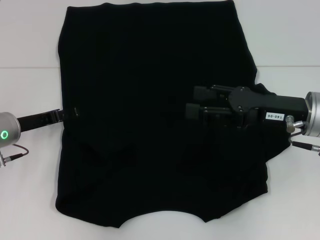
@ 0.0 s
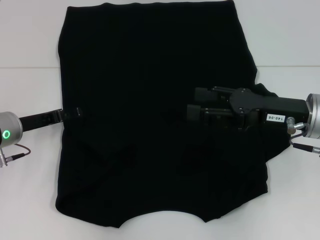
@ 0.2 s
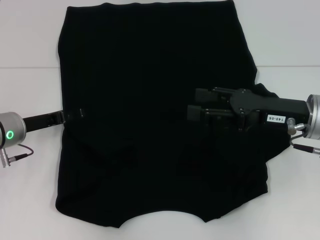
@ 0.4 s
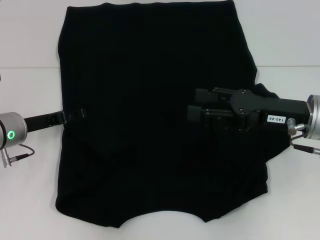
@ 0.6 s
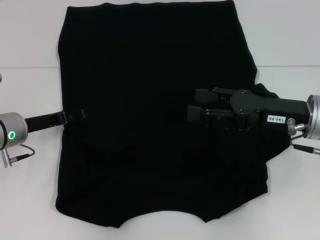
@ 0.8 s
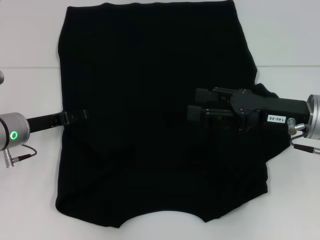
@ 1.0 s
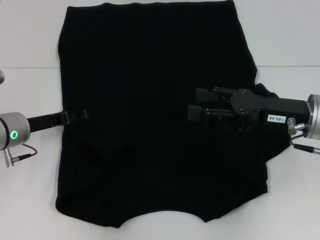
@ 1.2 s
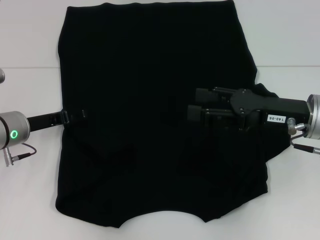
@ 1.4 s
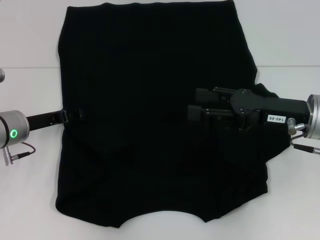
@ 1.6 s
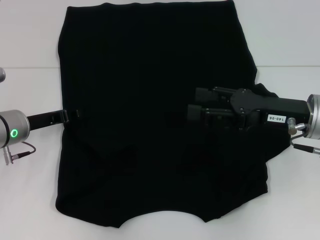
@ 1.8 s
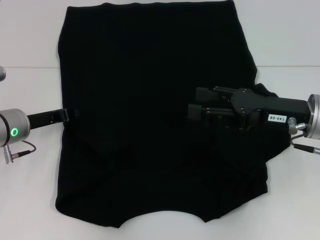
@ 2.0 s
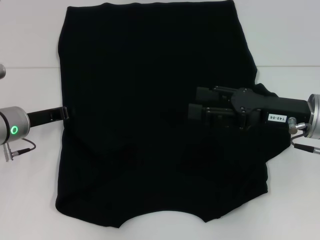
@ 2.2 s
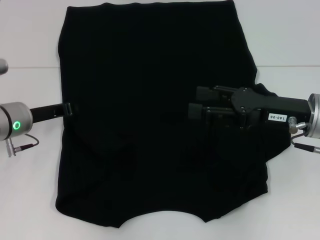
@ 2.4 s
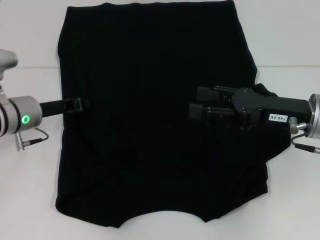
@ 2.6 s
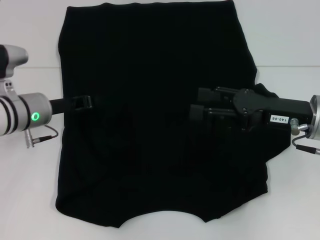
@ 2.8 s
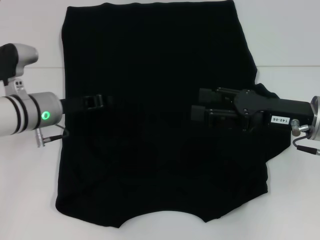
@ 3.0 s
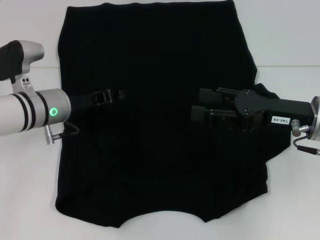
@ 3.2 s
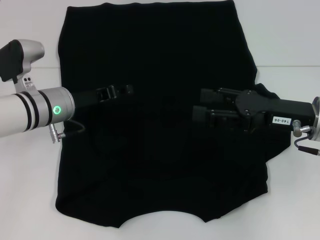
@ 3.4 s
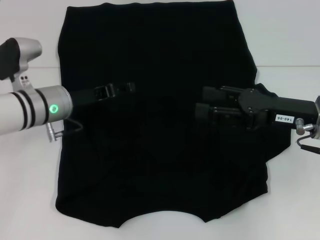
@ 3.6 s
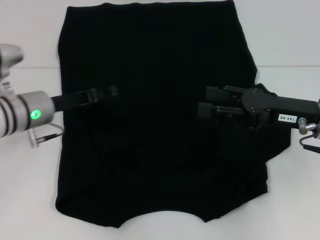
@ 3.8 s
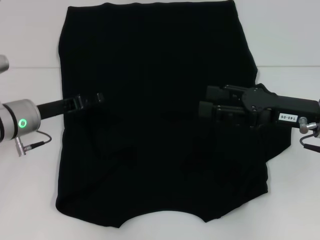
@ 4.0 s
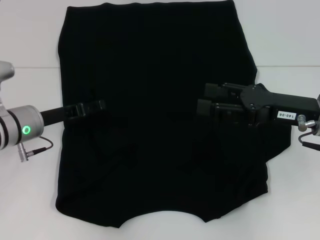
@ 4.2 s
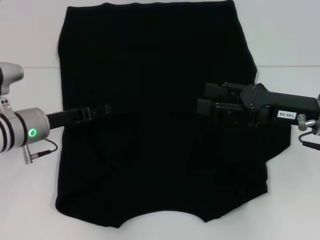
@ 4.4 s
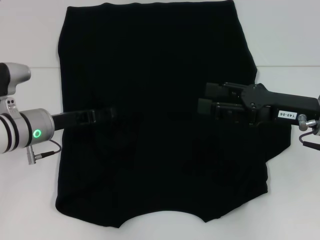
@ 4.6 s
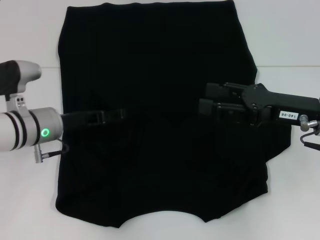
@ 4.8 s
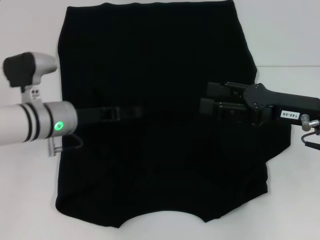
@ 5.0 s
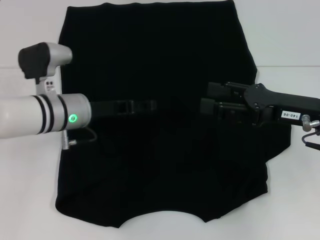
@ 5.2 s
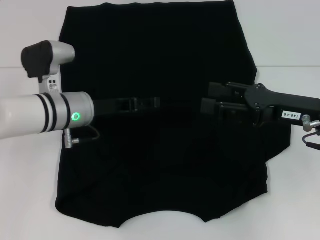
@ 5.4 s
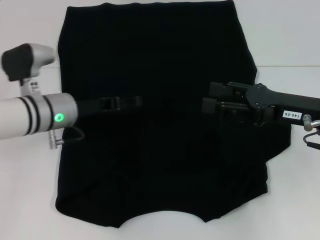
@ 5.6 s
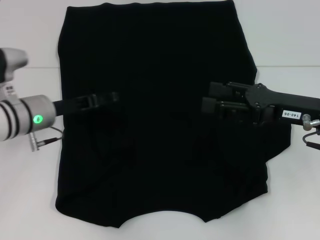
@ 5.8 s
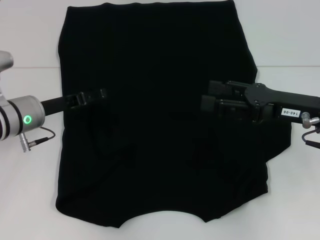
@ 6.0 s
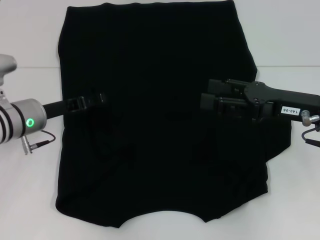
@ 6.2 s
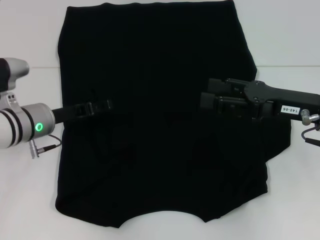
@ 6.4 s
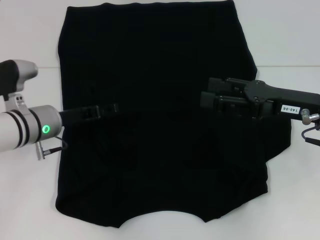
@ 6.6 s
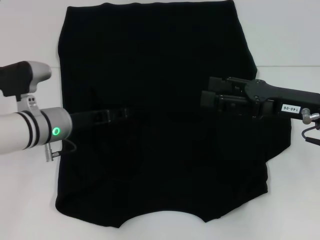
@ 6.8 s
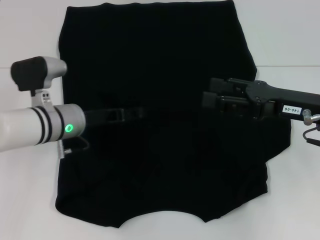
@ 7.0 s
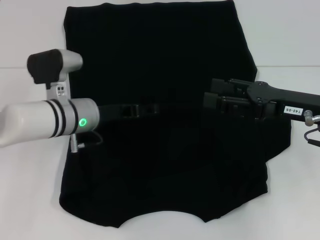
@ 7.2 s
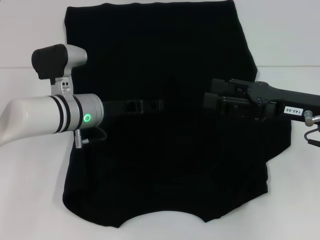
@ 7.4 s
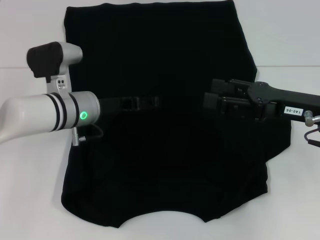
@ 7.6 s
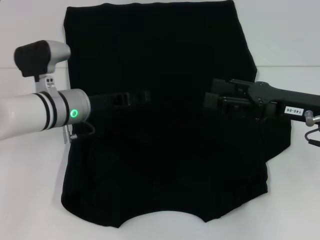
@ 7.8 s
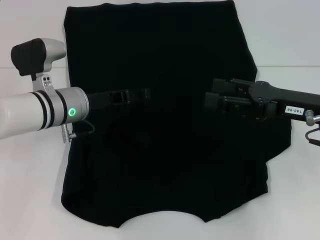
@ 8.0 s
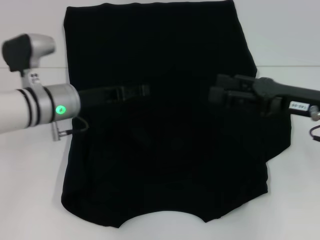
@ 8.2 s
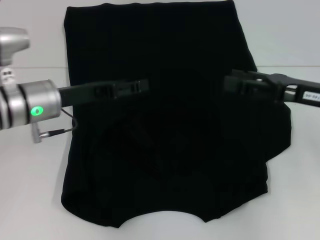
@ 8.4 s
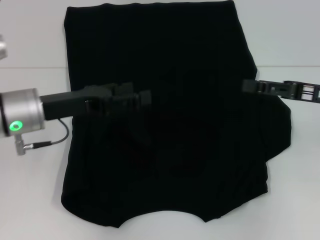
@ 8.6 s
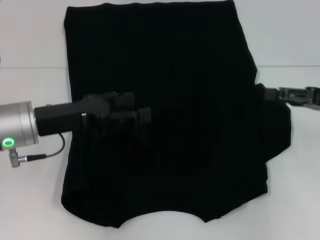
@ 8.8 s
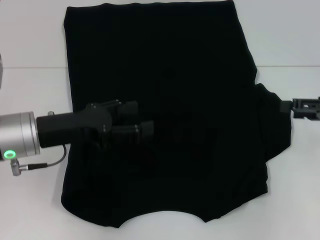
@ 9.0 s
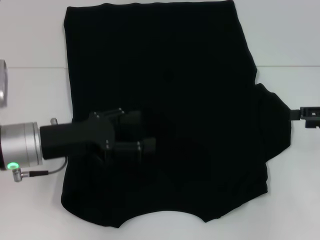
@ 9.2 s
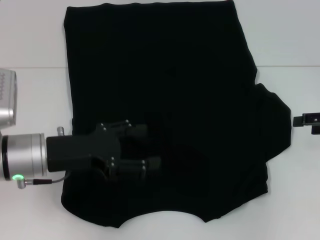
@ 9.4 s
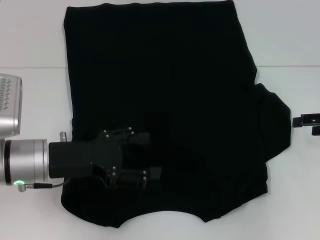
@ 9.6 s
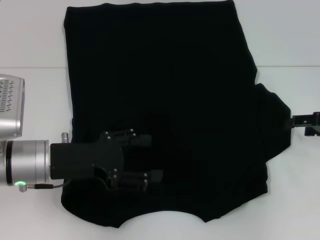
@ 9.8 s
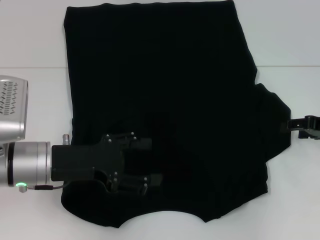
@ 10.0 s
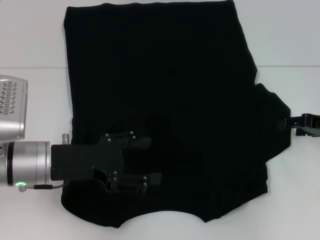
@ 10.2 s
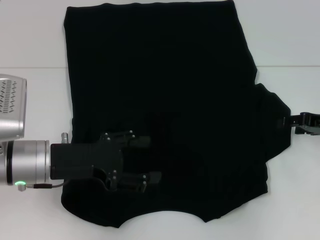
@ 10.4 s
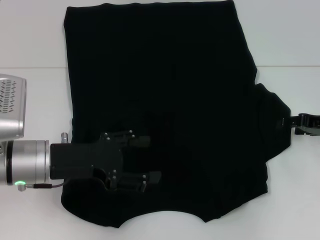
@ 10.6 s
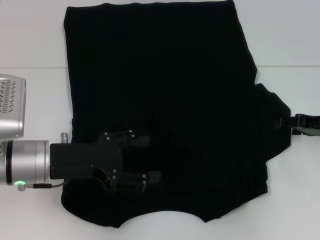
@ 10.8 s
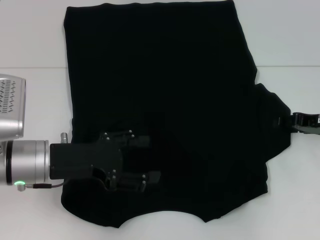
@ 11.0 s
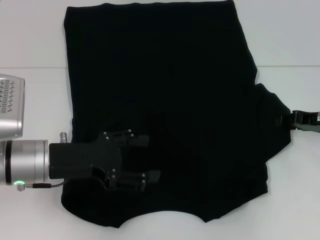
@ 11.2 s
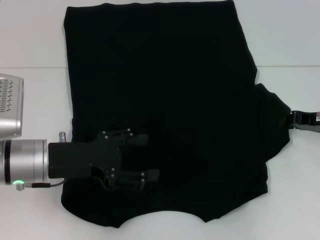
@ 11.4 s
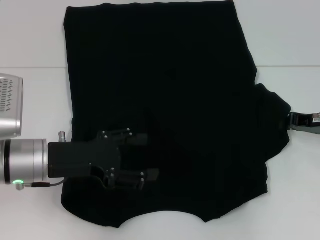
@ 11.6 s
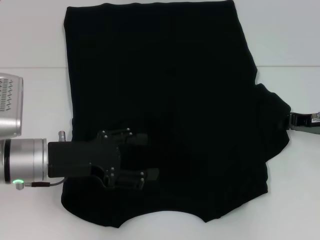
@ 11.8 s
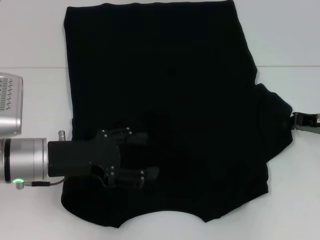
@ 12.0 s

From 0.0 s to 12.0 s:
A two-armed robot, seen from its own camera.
From 0.0 s to 1.6 s: The two grippers keep their place.
From 1.6 s to 3.0 s: The left gripper shifts by some 5 cm, and closes up.
From 3.0 s to 4.4 s: The left gripper opens its fingers.
From 6.0 s to 7.6 s: The left gripper travels to the right by some 10 cm.
From 7.6 s to 9.0 s: The left gripper shifts about 10 cm backward and to the left; the right gripper travels to the right by approximately 10 cm.
From 9.0 s to 10.4 s: The right gripper changes place by approximately 5 cm.
From 10.4 s to 12.0 s: The right gripper closes.

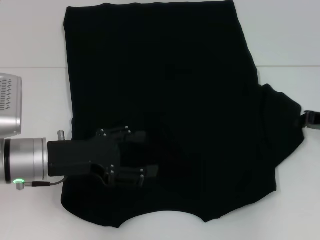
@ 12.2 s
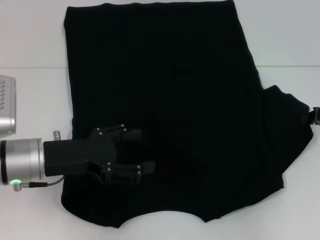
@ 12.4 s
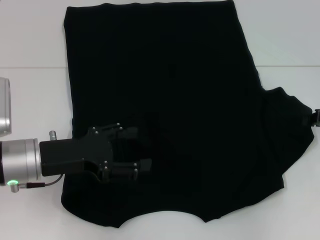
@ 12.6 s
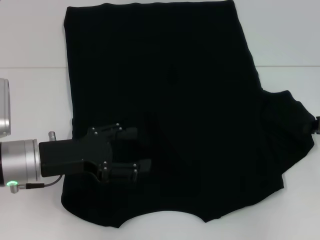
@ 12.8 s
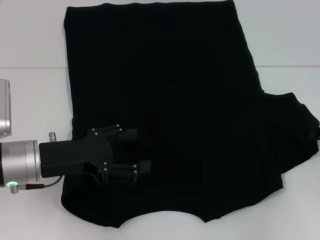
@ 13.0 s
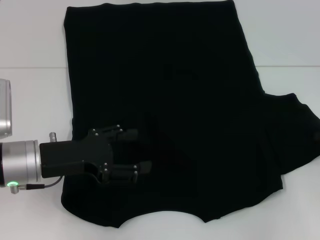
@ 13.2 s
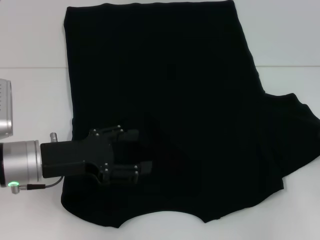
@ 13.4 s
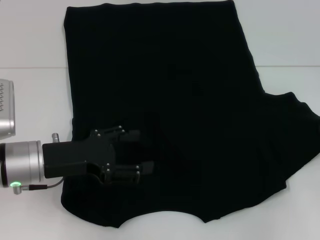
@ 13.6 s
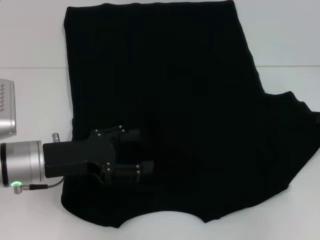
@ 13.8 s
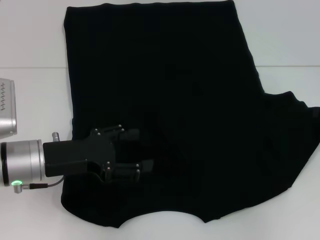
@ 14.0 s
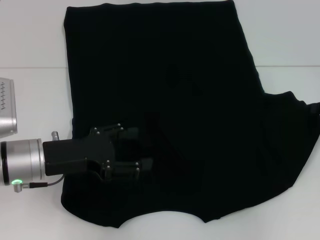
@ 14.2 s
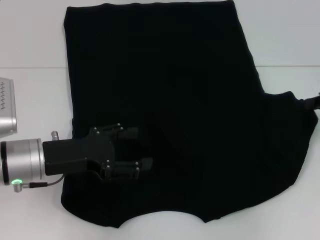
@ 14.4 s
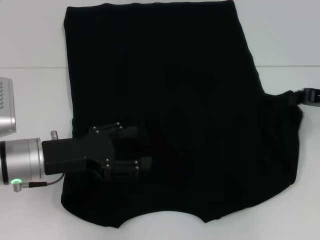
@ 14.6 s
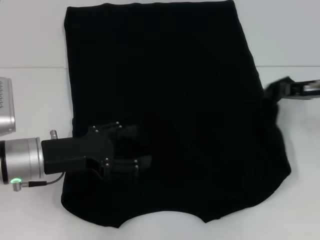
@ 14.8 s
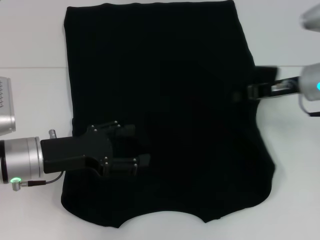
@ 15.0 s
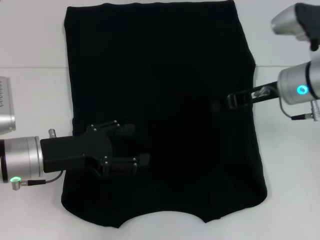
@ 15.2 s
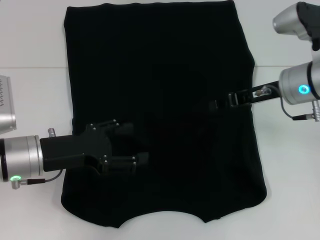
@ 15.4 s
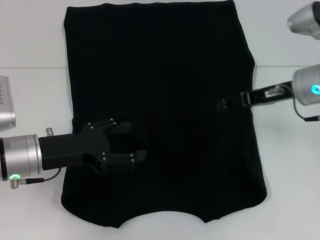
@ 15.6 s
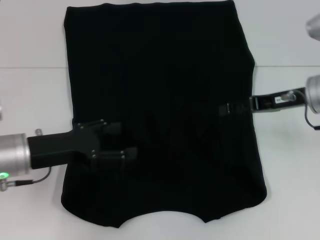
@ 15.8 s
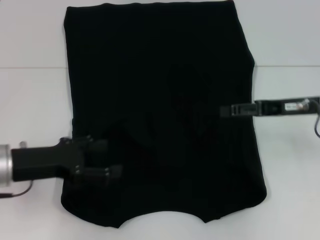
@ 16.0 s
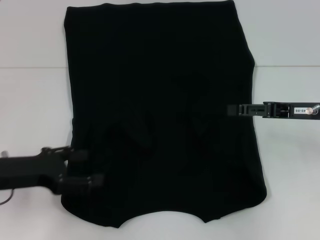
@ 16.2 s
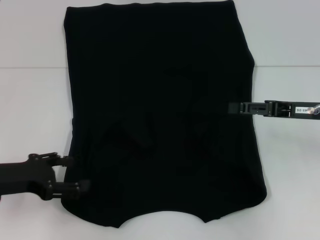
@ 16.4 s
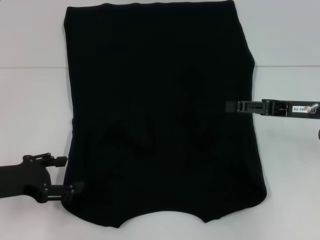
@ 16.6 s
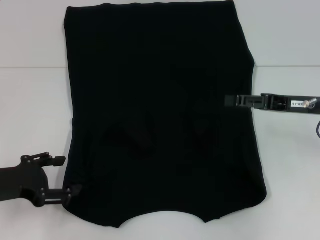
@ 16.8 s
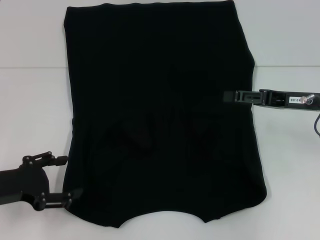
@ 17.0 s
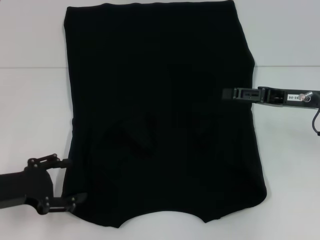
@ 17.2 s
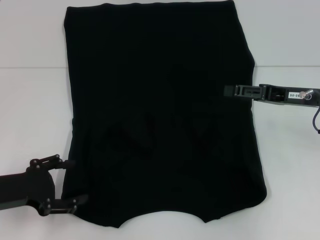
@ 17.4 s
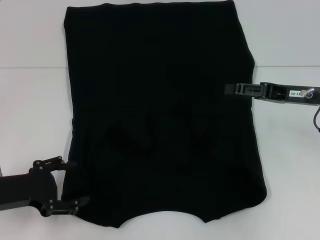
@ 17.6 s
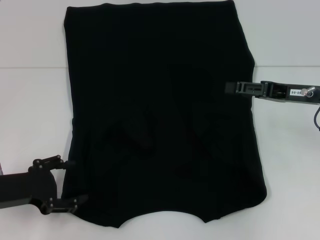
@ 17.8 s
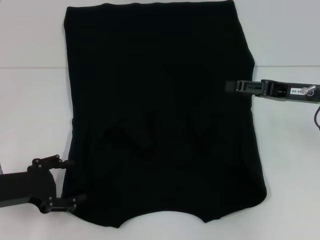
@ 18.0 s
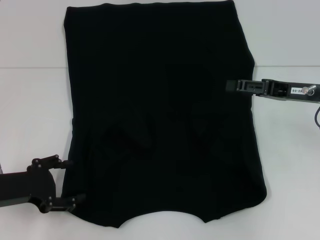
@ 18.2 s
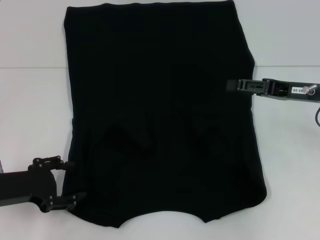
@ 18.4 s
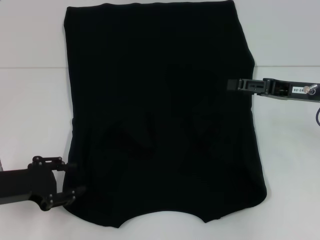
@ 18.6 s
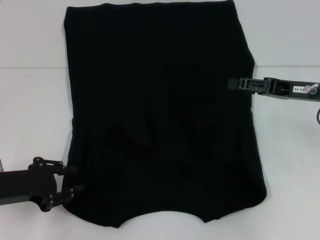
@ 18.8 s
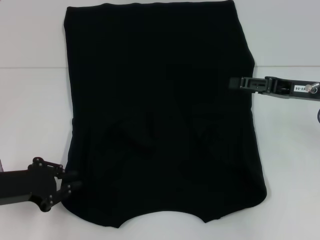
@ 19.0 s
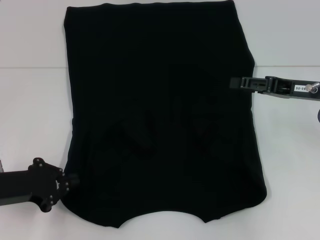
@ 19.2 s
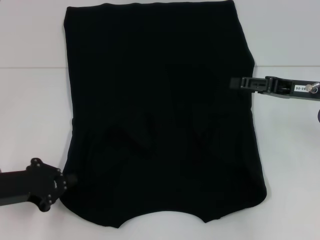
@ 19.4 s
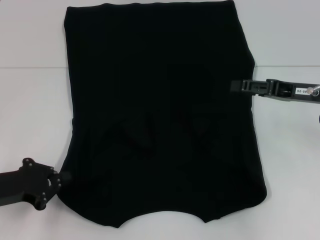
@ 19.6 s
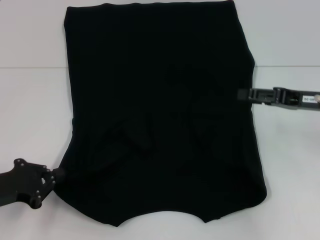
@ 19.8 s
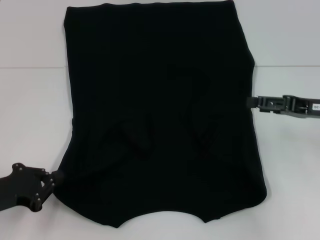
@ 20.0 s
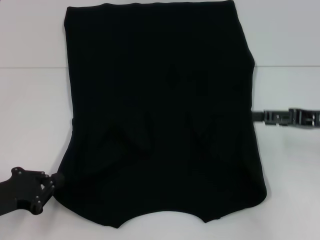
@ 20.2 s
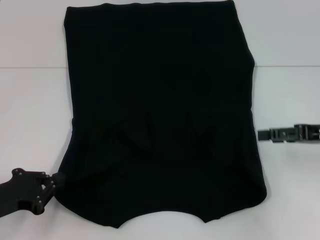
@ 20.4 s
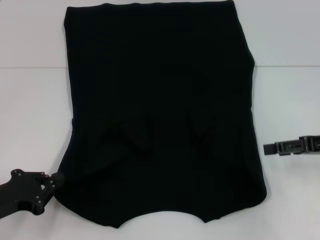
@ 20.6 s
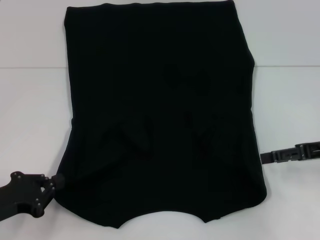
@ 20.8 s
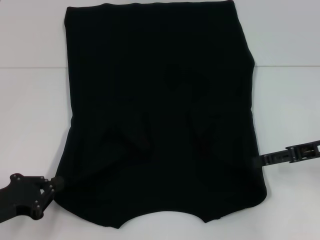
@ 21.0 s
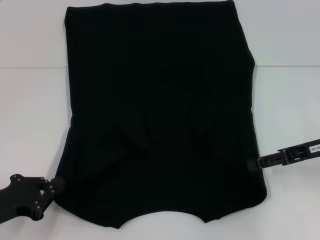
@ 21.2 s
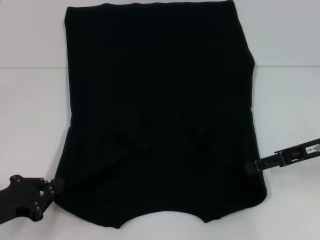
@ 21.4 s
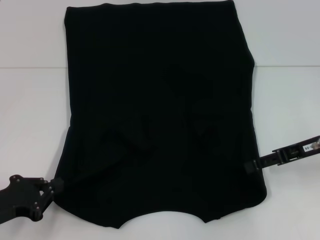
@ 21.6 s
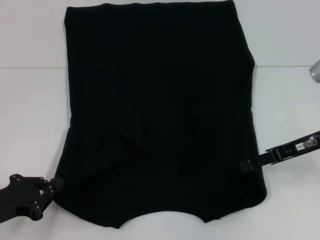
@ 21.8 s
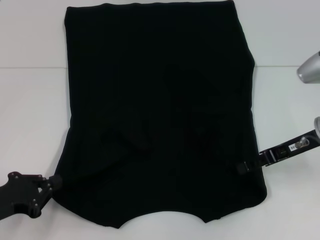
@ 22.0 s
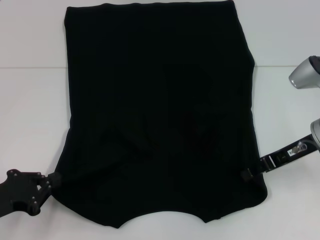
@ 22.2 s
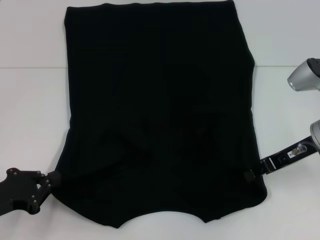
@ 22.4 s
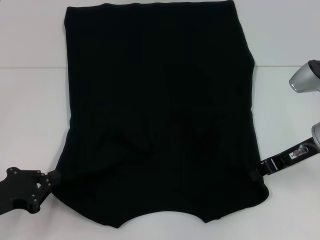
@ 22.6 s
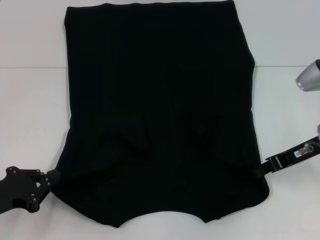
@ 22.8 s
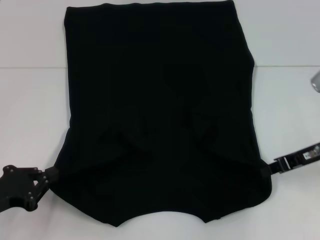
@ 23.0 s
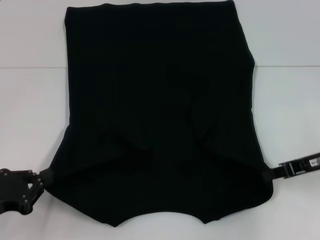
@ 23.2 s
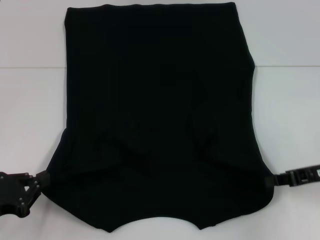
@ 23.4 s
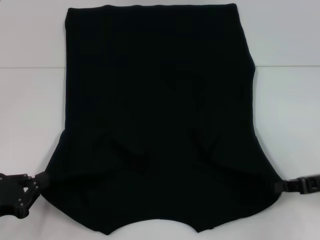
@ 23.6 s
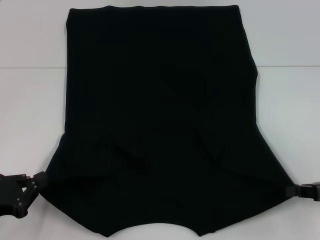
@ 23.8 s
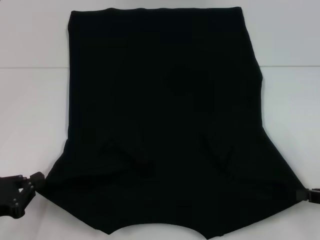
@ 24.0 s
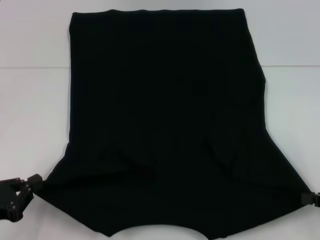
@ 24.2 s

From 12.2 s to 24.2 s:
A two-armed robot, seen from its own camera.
Step, from 12.2 s to 15.8 s: Fold the bottom right sleeve with your right hand.
Step, from 16.0 s to 23.4 s: Grab the bottom left corner with your left hand.
Step, from 16.0 s to 23.4 s: Grab the bottom right corner with your right hand.
From 12.2 s to 13.8 s: The grippers stay close to where they were, moving slightly.
From 13.8 s to 15.2 s: The right gripper goes some 15 cm to the left.
From 15.2 s to 16.6 s: The right gripper moves to the right and backward, about 10 cm, and opens its fingers. Meanwhile the left gripper goes some 5 cm to the left.
From 16.6 s to 18.2 s: The grippers make only small movements.
From 18.2 s to 19.8 s: The left gripper closes its fingers.
From 21.2 s to 22.6 s: The right gripper closes its fingers.
From 22.6 s to 24.2 s: The right gripper is displaced backward and to the right by roughly 15 cm.
